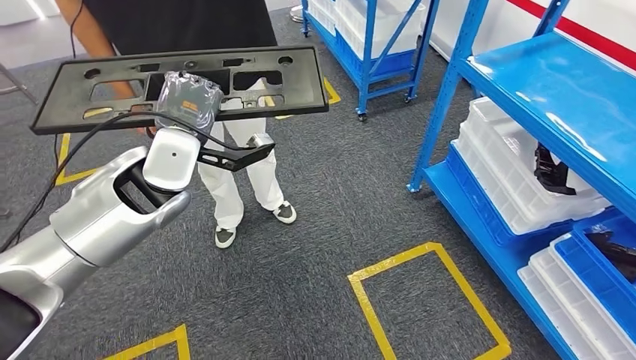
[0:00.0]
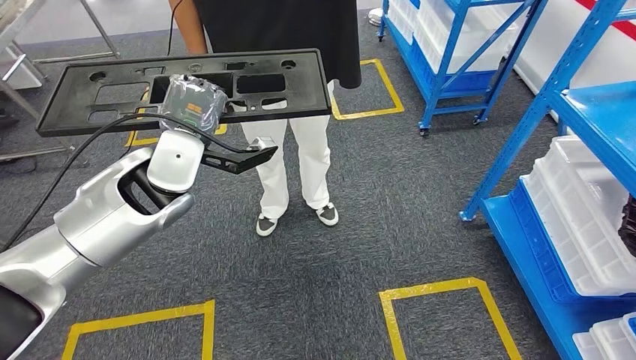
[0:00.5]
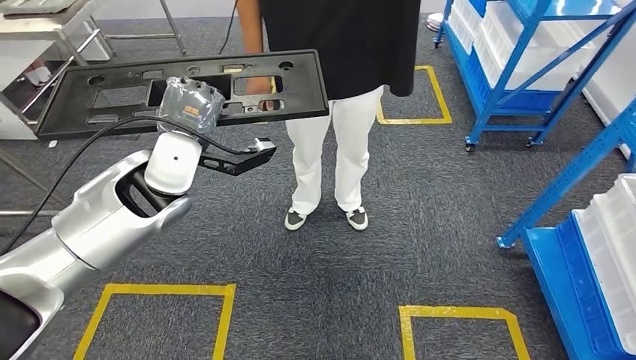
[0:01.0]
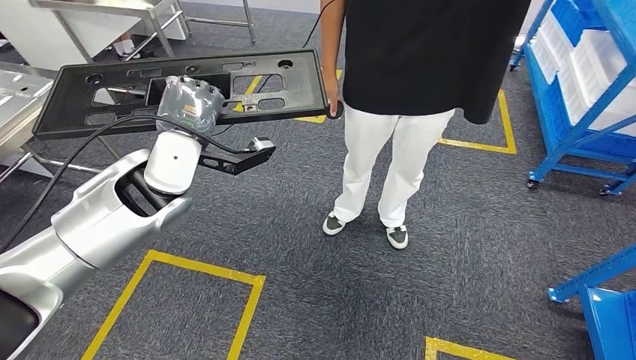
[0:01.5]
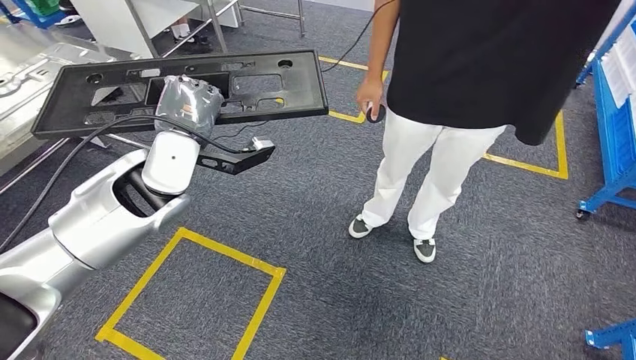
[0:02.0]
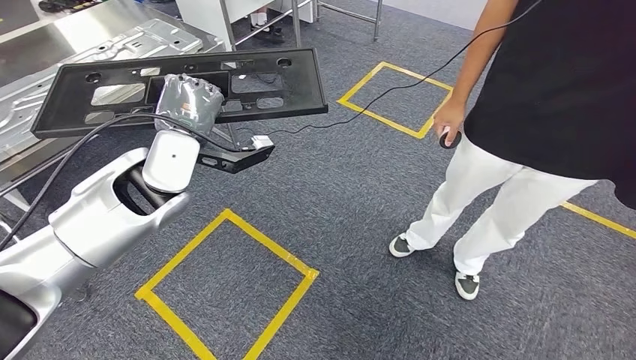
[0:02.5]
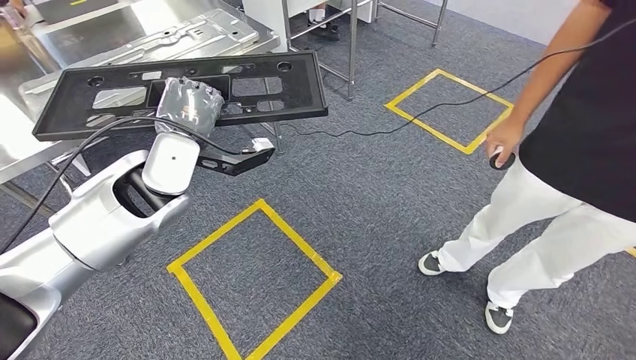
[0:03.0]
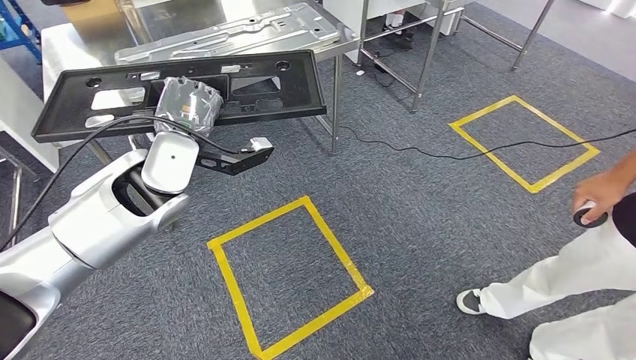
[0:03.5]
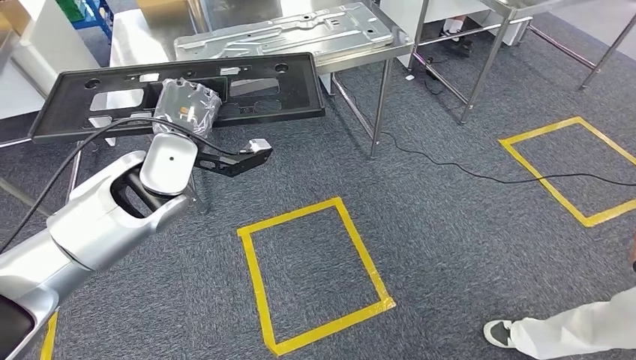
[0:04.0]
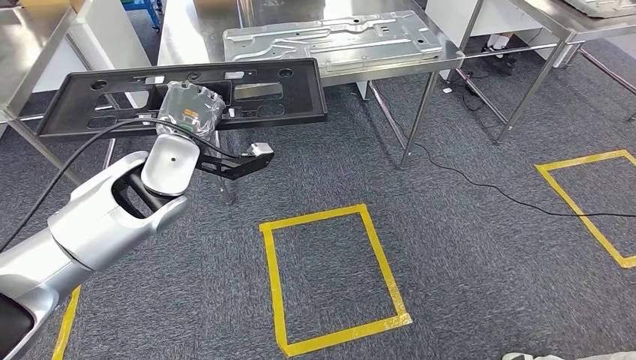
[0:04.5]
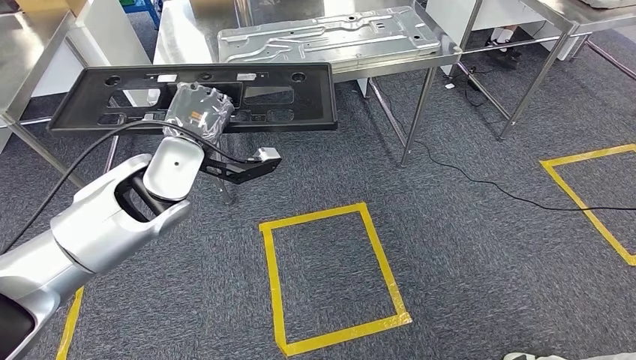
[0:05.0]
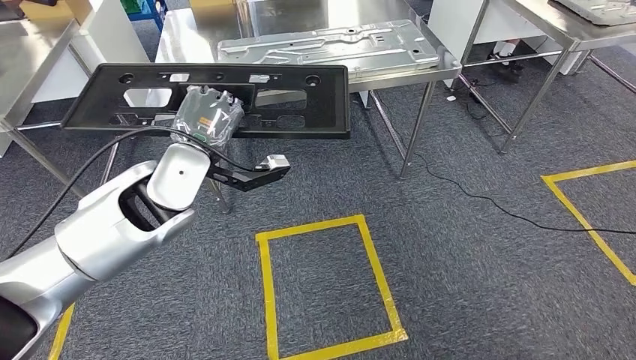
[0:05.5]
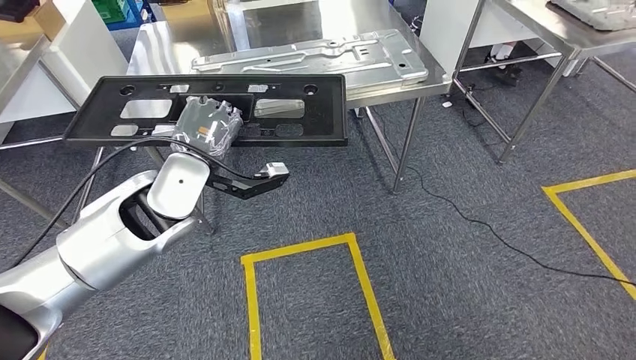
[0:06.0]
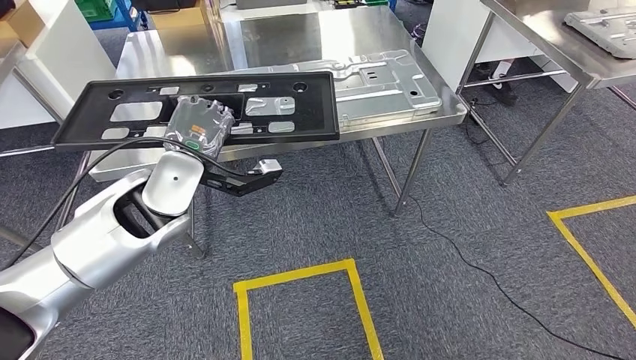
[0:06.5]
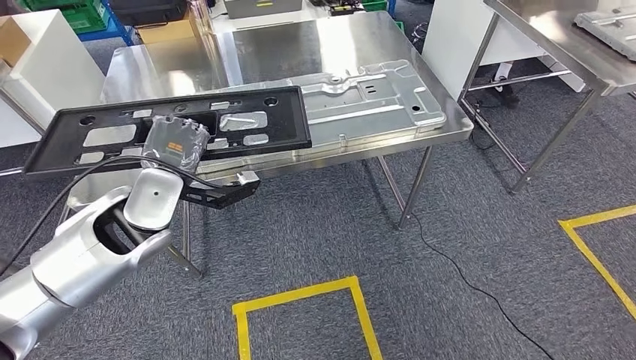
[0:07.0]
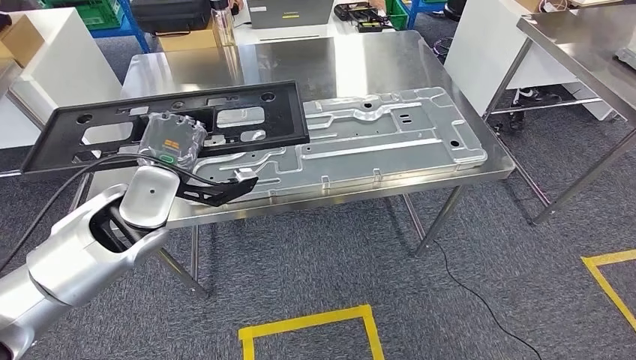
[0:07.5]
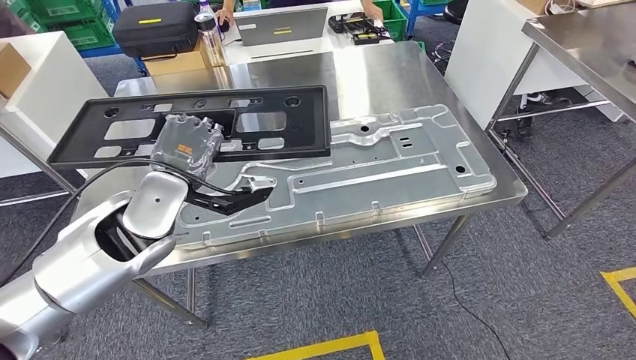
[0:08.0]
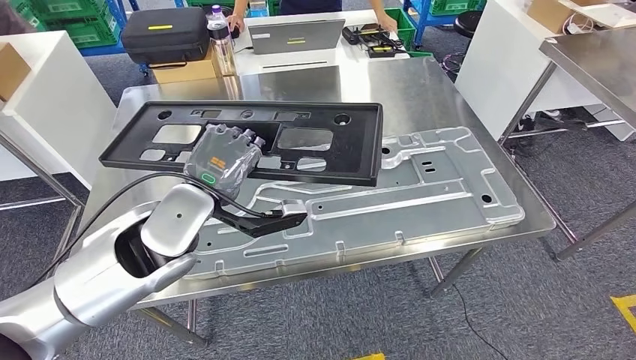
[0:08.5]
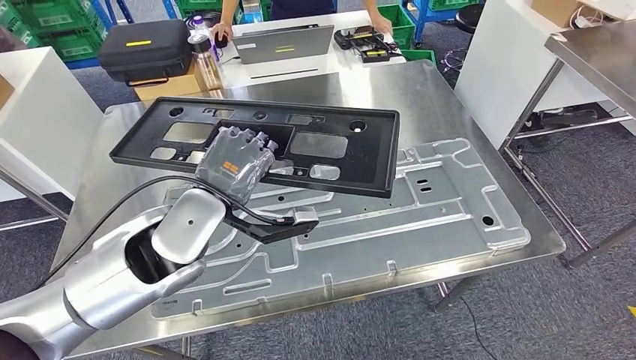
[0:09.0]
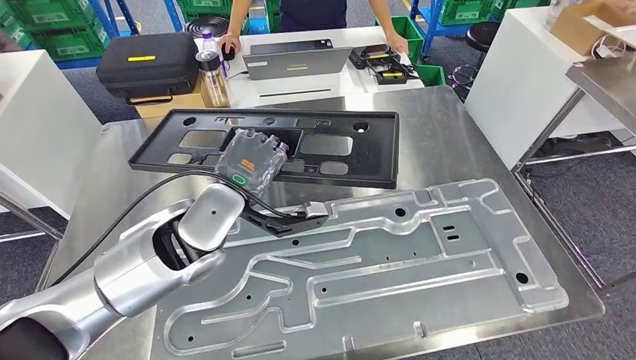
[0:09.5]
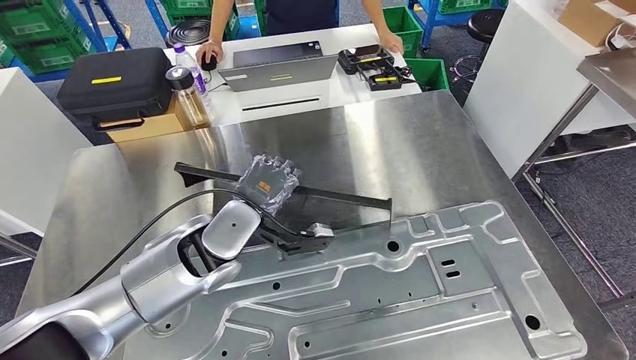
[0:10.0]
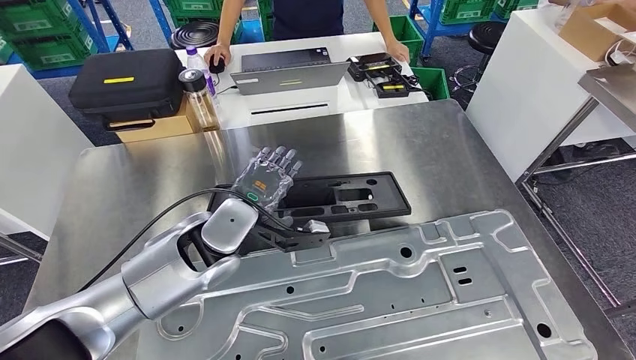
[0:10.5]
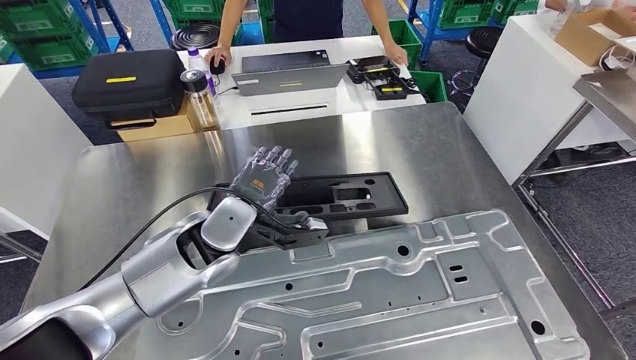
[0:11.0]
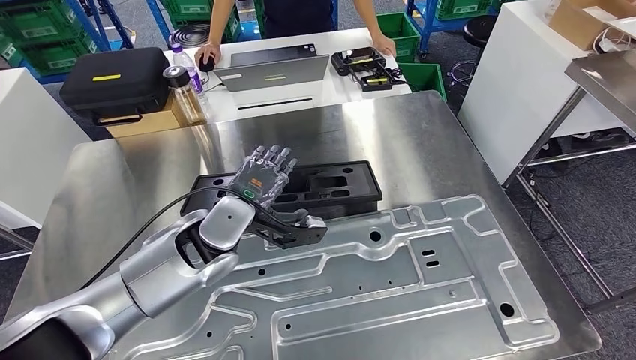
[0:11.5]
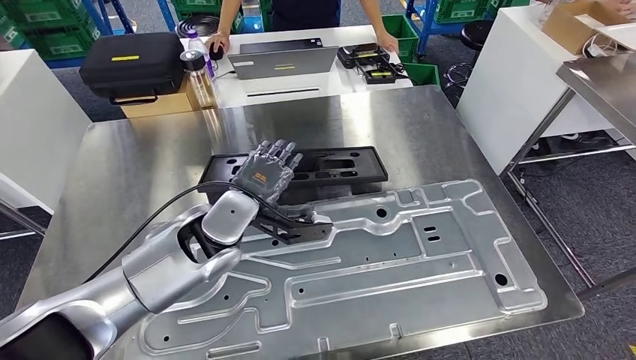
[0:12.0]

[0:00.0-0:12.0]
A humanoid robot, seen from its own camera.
Step, 0:00.0 to 0:06.0: Move the large material to the workbench.
Step, 0:06.5 to 0:10.5: Insert the large material into the corresponding slot on the workbench.

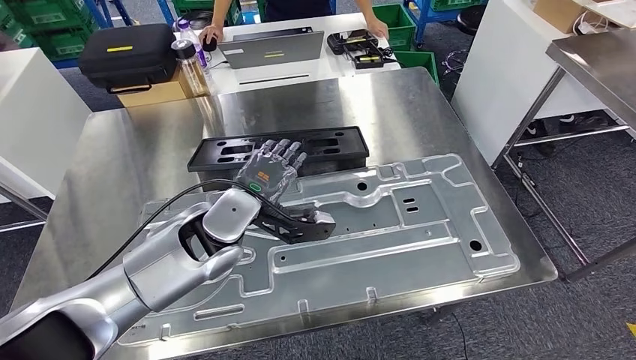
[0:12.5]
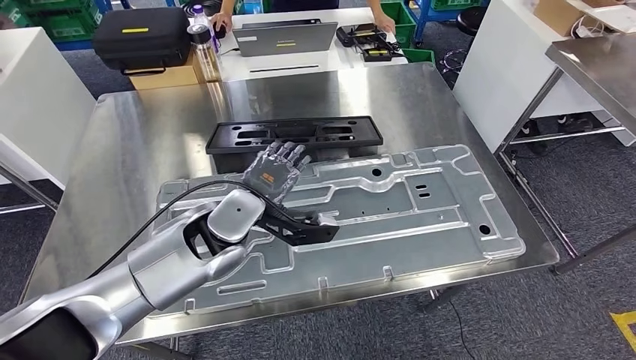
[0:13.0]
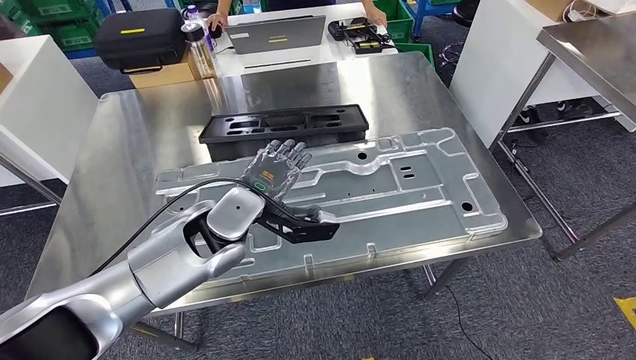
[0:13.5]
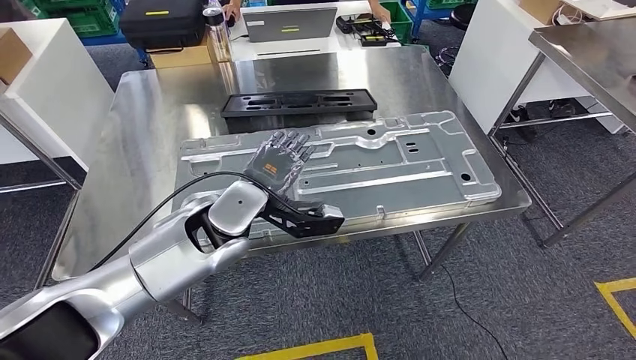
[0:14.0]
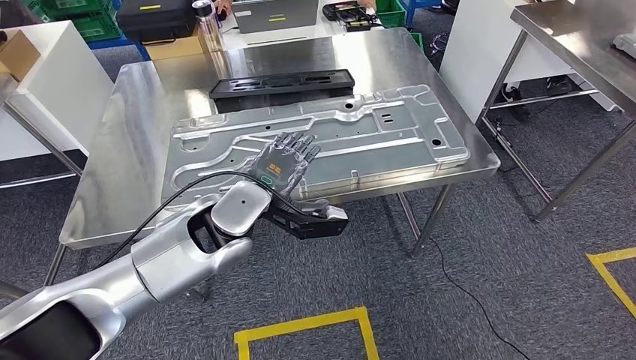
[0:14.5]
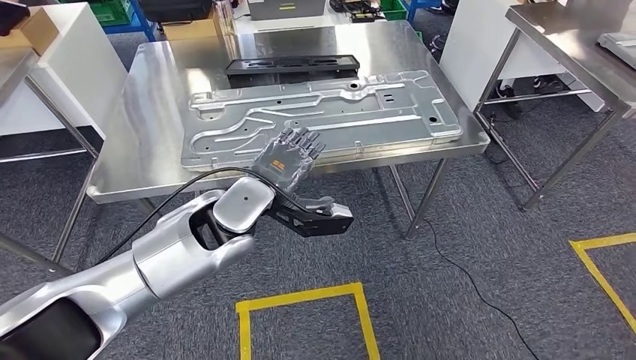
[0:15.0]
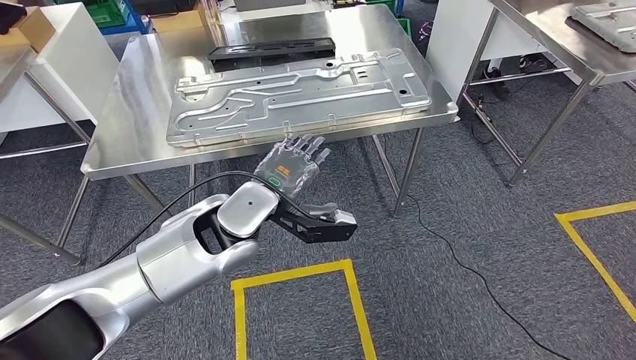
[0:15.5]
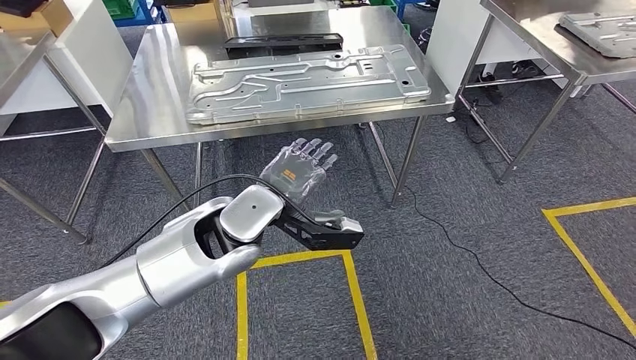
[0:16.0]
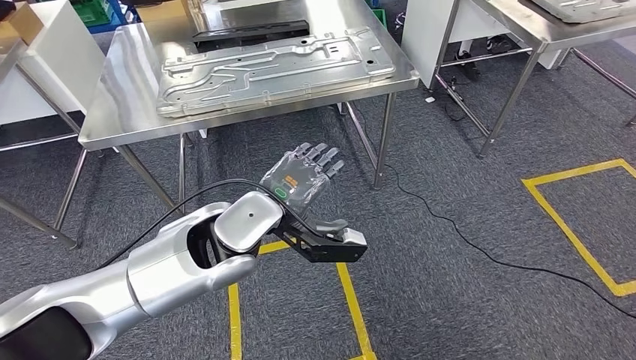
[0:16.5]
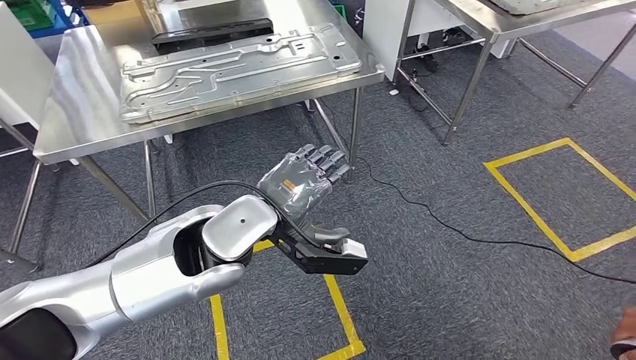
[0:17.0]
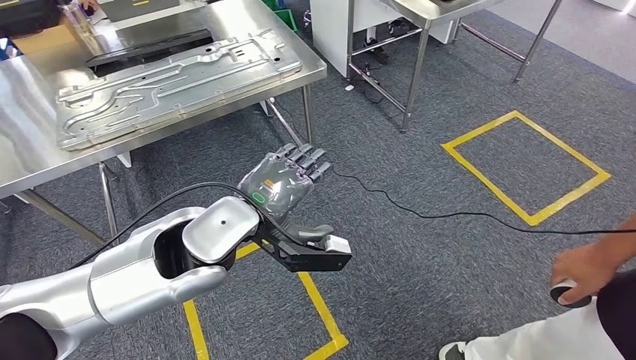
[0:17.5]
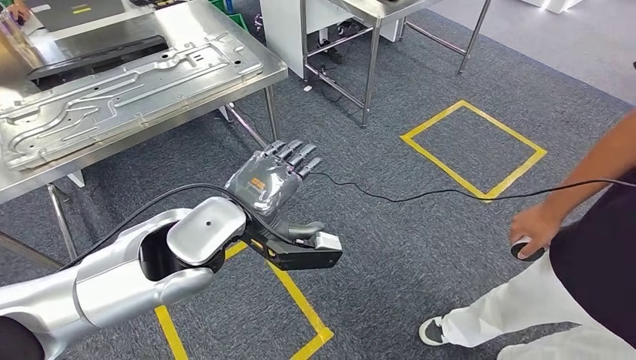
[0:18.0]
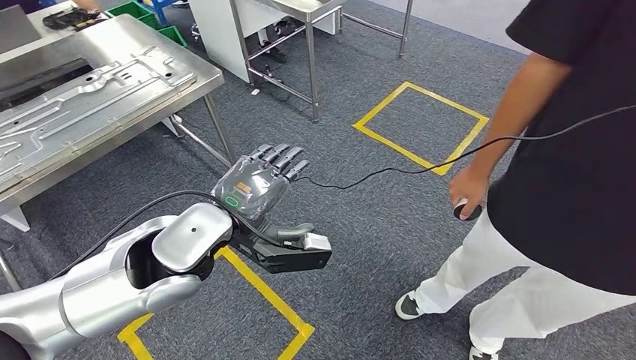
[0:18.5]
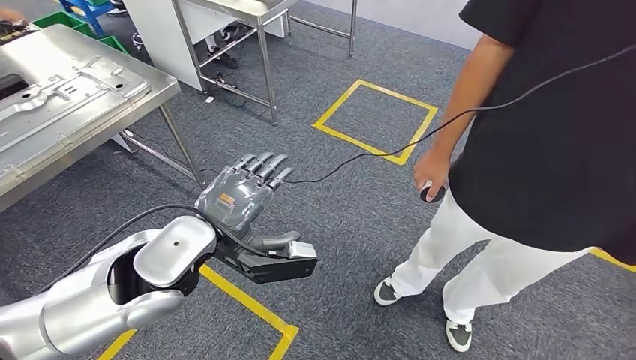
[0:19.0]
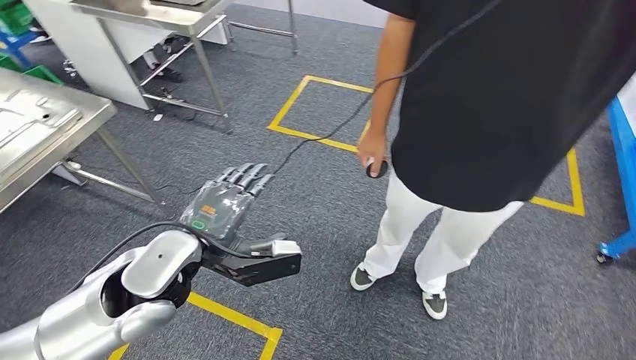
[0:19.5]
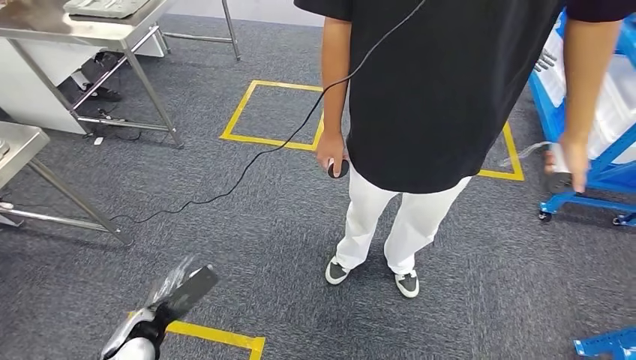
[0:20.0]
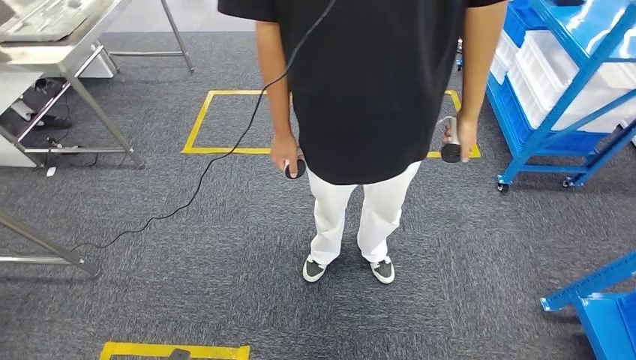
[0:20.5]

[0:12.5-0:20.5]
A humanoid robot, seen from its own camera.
Step, 0:12.5 to 0:20.5: Return to the initial position at the shelf.
